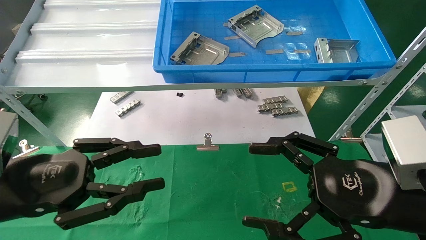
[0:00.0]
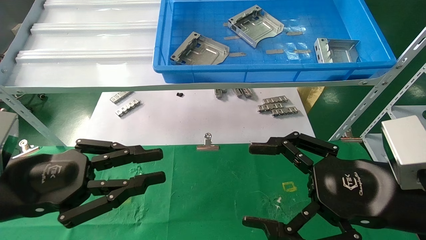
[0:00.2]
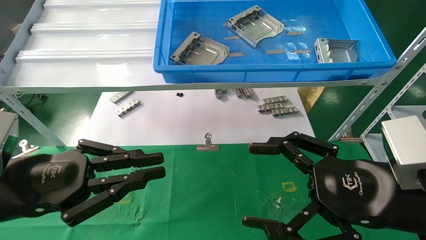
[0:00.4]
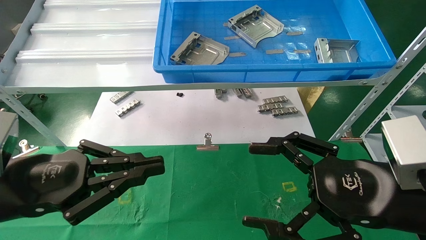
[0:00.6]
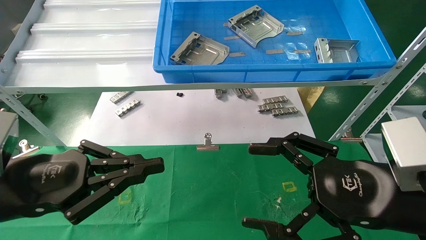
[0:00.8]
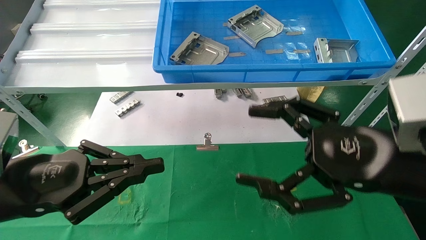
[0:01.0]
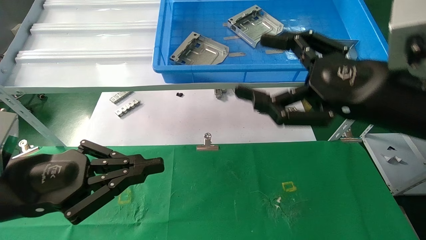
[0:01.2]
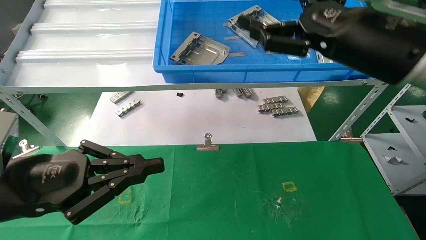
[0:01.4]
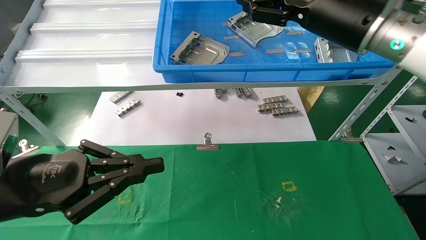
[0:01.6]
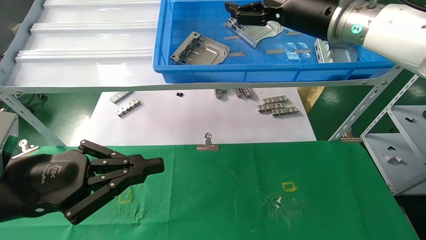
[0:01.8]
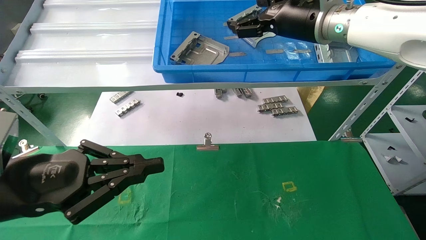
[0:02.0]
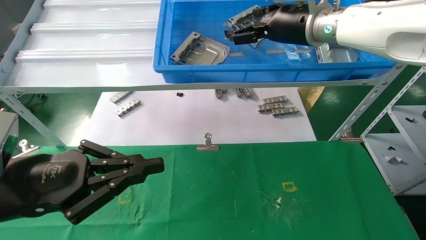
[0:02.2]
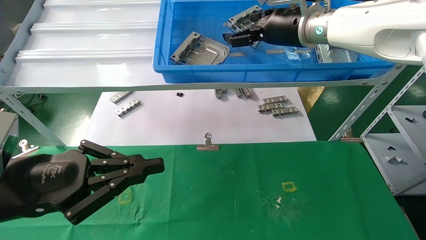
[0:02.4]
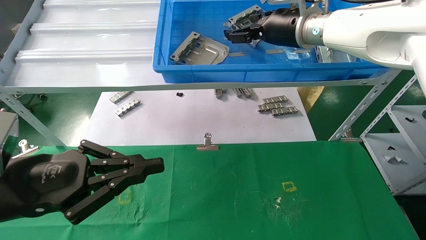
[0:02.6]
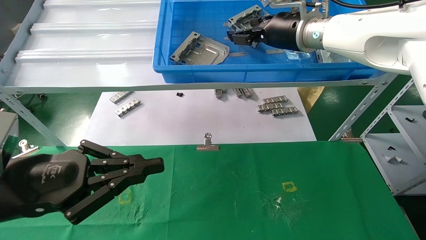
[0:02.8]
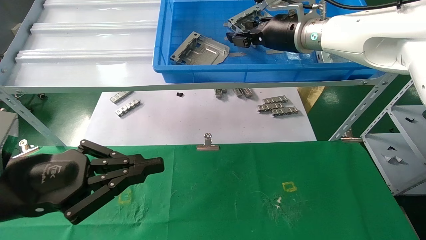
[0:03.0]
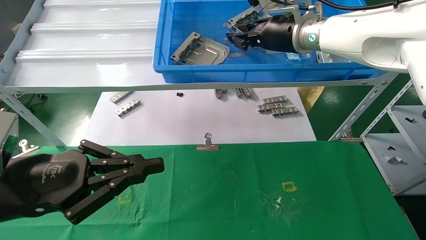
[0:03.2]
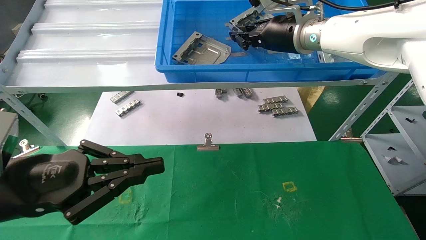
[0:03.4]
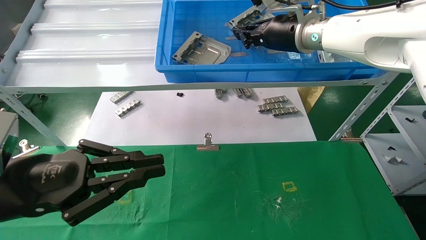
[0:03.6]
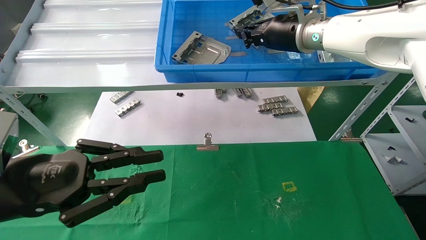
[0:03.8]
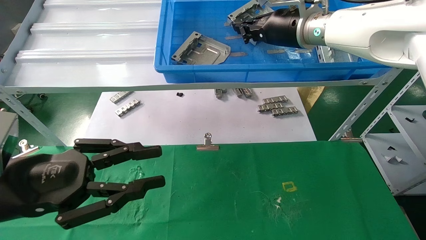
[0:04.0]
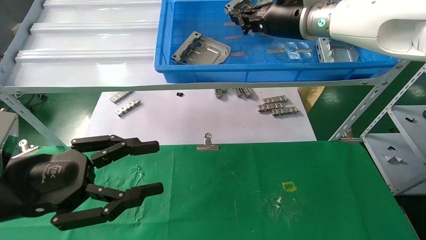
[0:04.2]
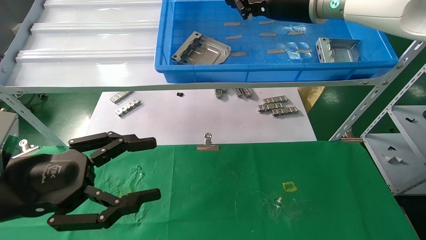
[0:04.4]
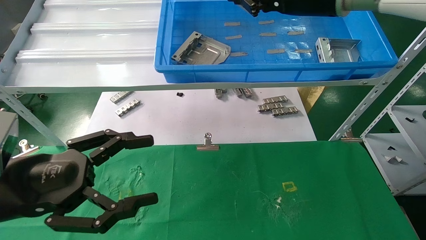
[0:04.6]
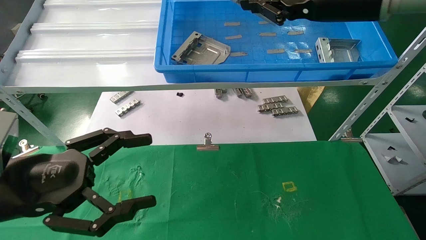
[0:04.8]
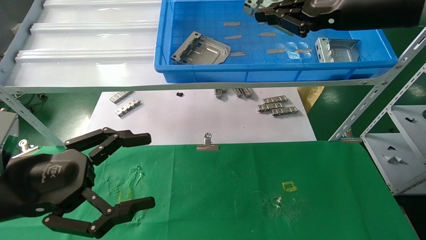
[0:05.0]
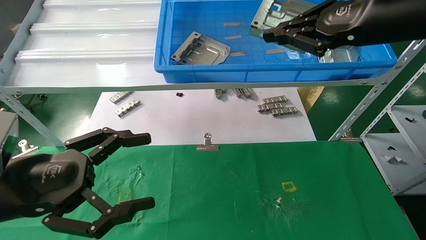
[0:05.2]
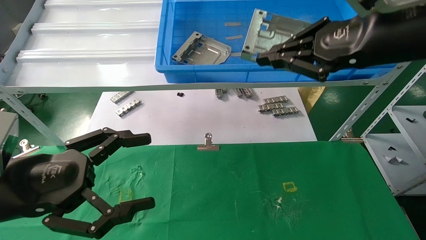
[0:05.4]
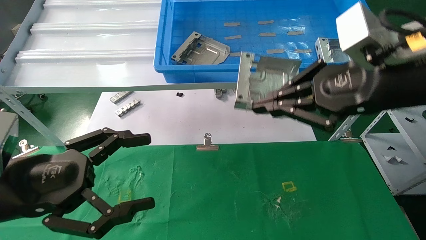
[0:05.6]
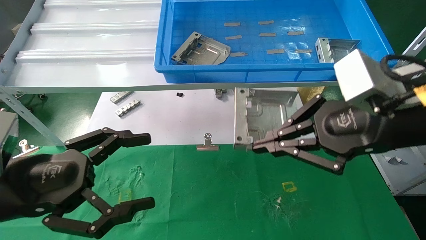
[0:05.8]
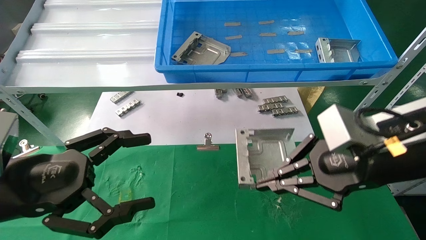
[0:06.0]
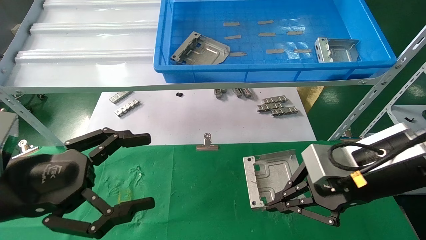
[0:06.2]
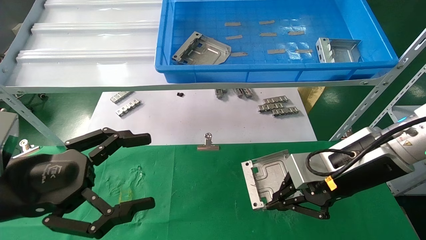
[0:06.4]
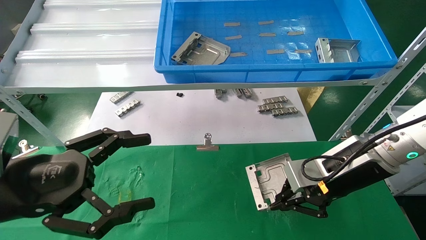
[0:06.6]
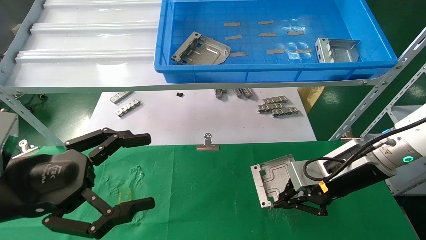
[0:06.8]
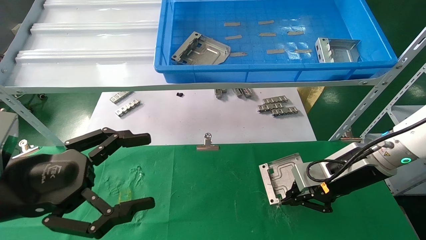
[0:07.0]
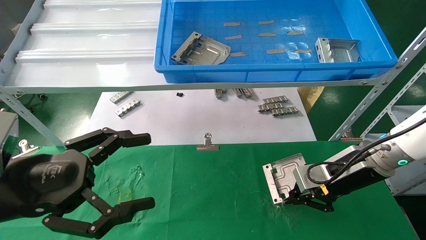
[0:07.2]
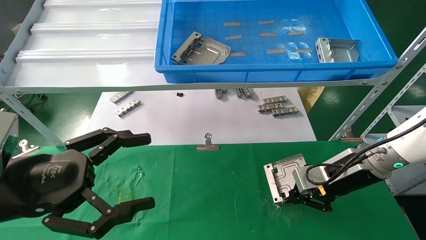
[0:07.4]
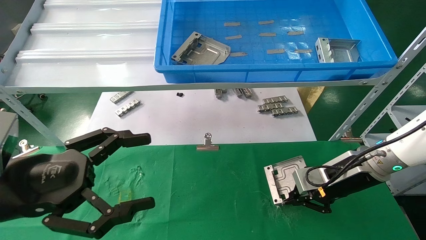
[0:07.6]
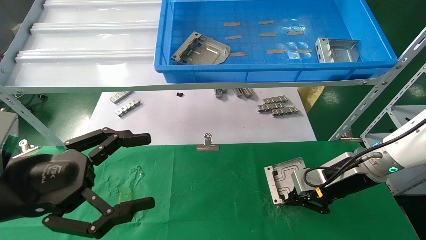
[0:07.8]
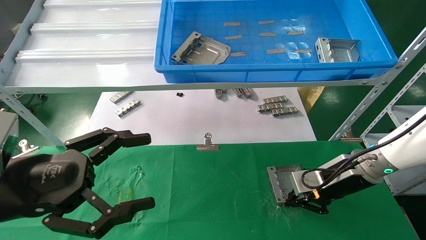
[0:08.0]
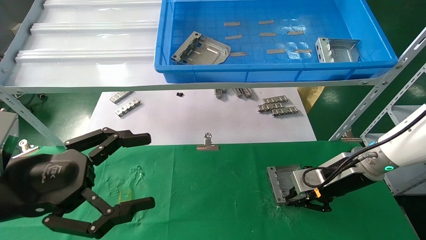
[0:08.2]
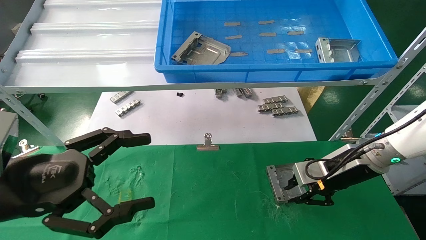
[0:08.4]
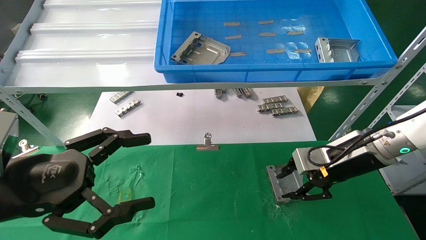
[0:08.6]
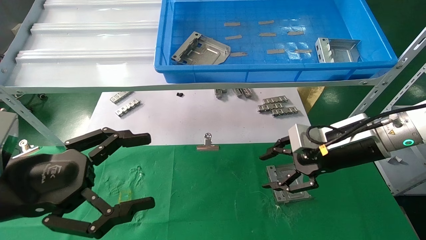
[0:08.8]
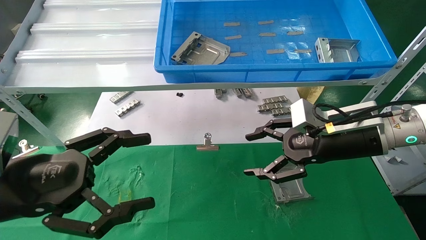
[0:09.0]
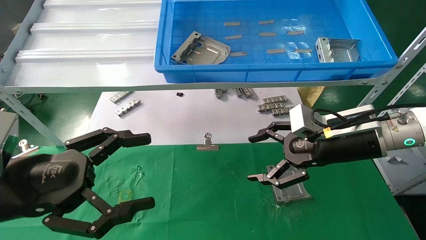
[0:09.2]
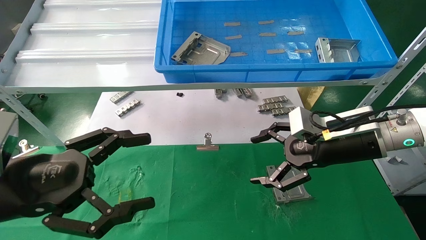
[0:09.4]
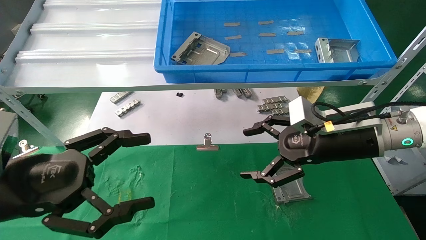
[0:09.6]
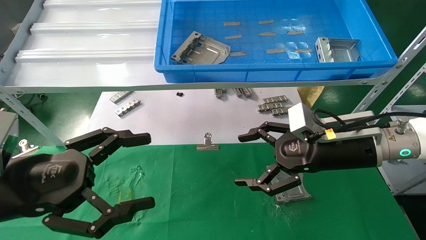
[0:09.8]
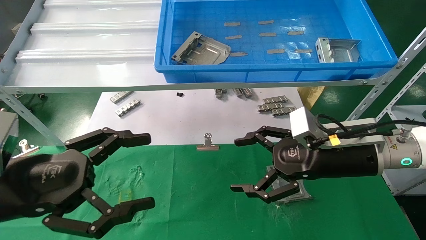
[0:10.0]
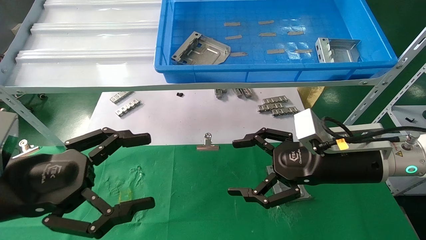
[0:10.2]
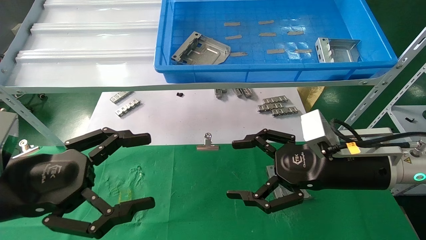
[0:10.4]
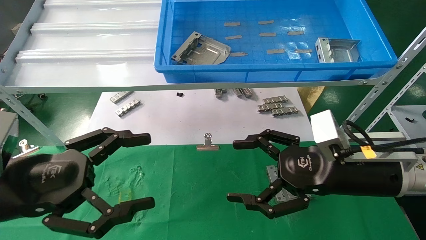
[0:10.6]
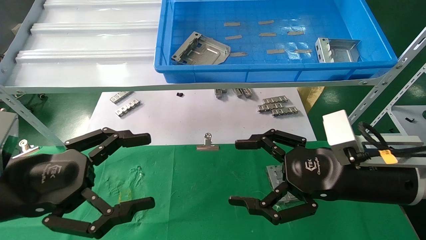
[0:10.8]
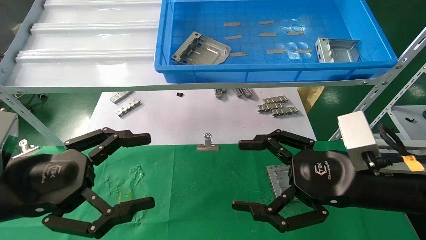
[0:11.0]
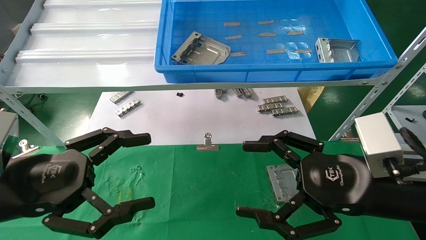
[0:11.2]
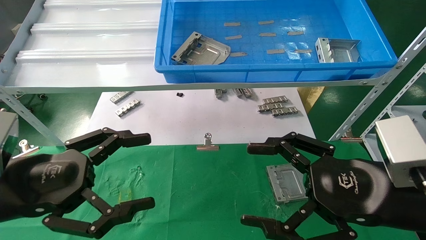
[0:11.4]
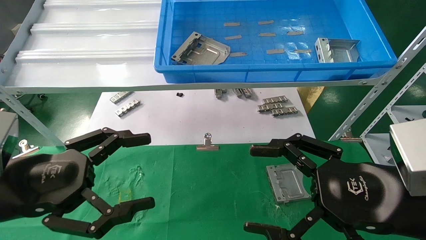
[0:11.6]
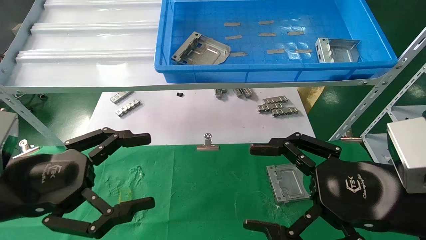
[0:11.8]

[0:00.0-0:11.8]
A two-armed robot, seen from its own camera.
Task of the whole recording: use the mechanical arm to pick up the parts and place them on the table.
Step, 0:01.2 to 0:05.0: Pick up the hard drive bracket from the feeding area.
Step, 0:05.2 to 0:08.6: Place the hard drive bracket into the box.
0:00.0 to 0:01.4: The left gripper closes its fingers, while the right gripper goes approximately 15 cm upward and forward.
0:01.4 to 0:03.0: The right gripper goes approximately 15 cm forward and to the left, and closes its fingers.
0:03.0 to 0:04.4: The left gripper opens; the right gripper ends up some 5 cm from where it was, and closes its fingers.
0:04.4 to 0:06.0: The right gripper heads backward, downward and to the right, covering approximately 25 cm; the left gripper opens.
0:06.0 to 0:07.4: The right gripper heads forward and downward, covering some 15 cm.
0:07.4 to 0:08.8: The right gripper changes place by some 5 cm, and opens its fingers.
0:08.8 to 0:10.4: The right gripper goes roughly 5 cm backward, and opens its fingers.
0:10.4 to 0:11.8: The right gripper shifts about 10 cm backward.
